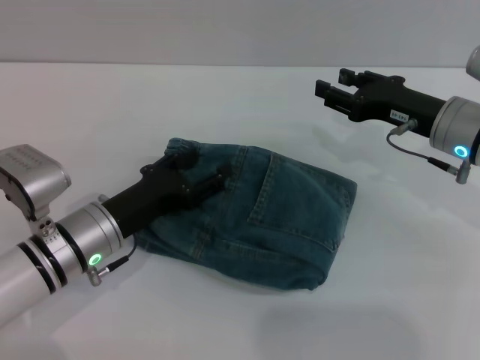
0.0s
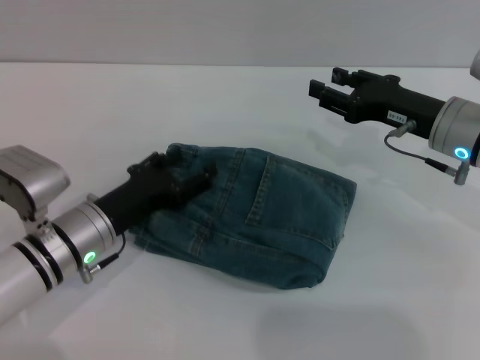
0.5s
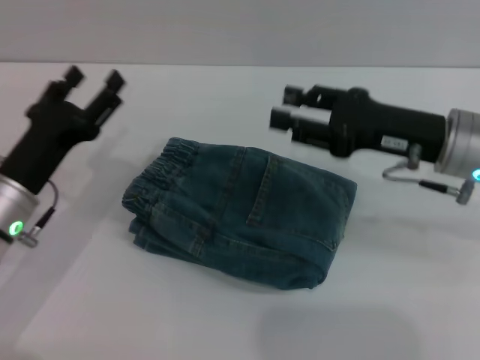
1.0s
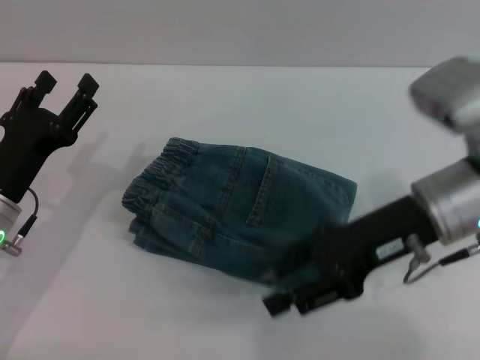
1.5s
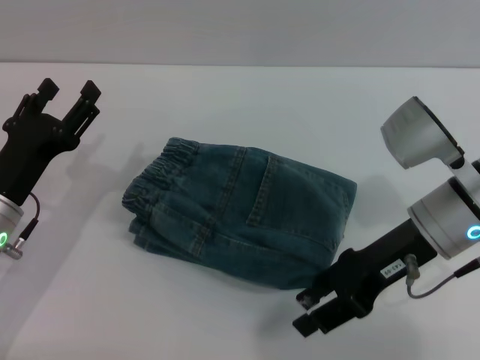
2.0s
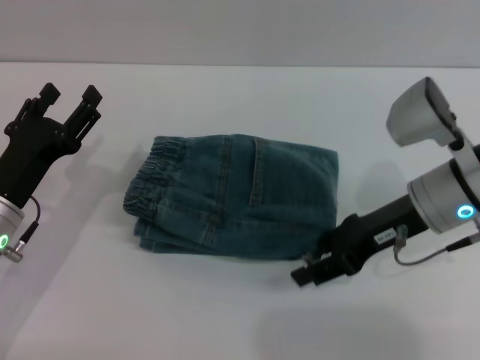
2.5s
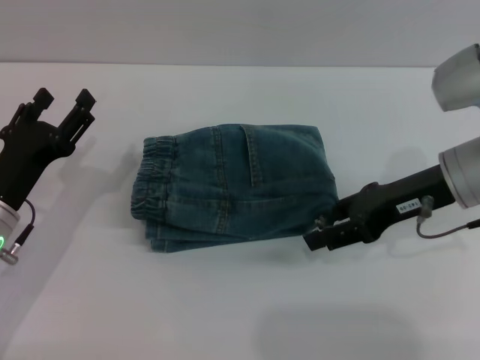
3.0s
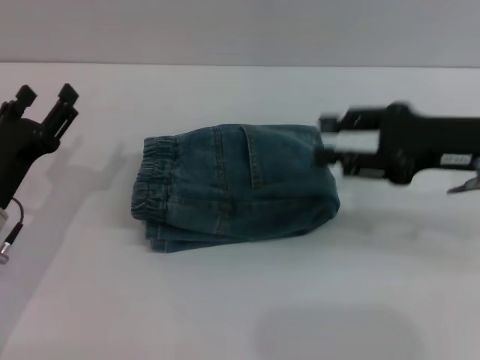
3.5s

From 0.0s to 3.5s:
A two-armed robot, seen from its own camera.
Step, from 0.0s to 3.0s: Place the folded trousers onto the center area with right gripper.
From 0.0s to 2.0s: The right gripper heads backward, covering roughly 5 cm. The left gripper moves to the left, approximately 5 cm.
From 2.0s to 3.5s: The right gripper moves to the right, about 5 cm.

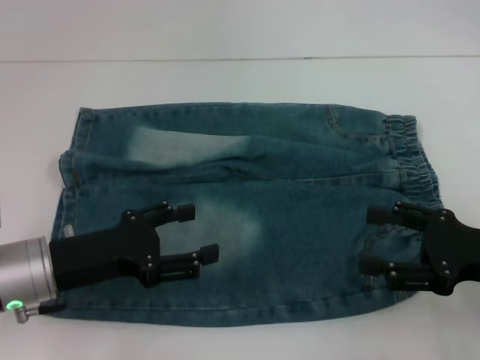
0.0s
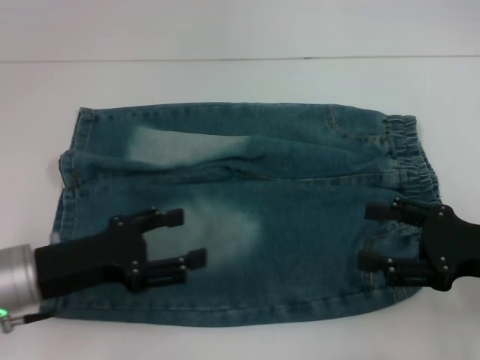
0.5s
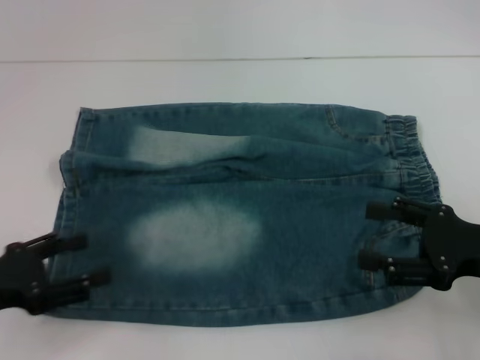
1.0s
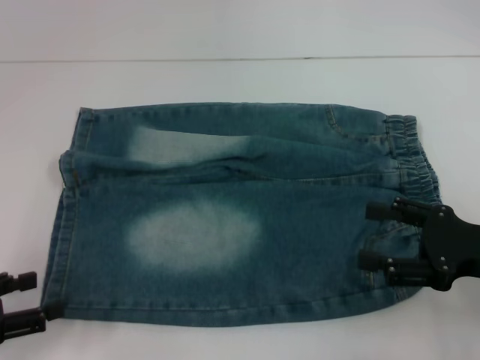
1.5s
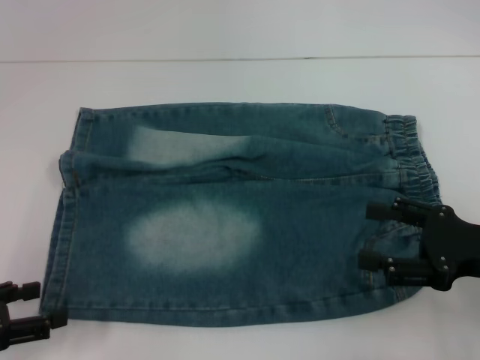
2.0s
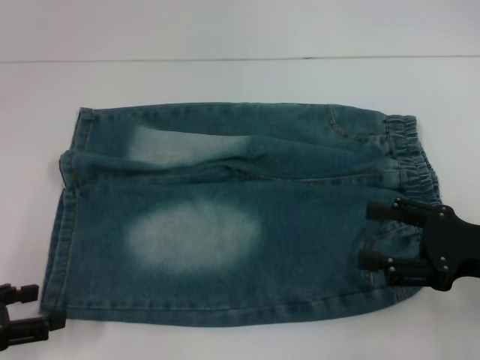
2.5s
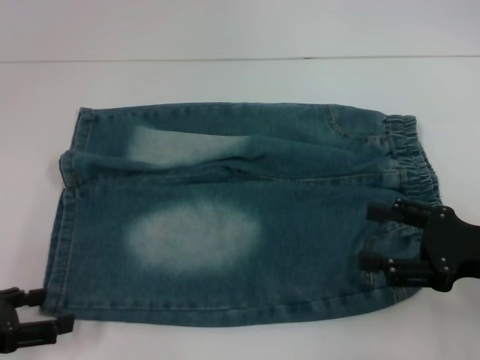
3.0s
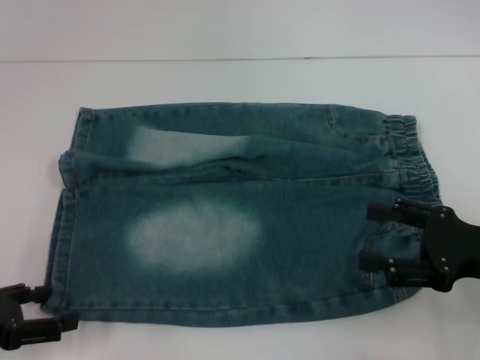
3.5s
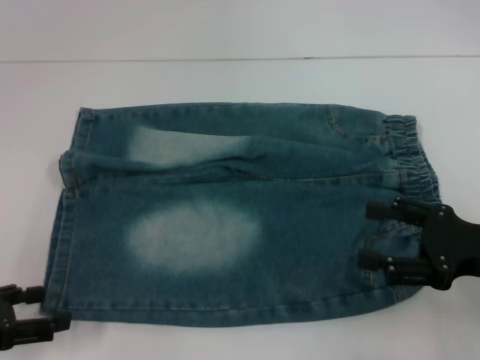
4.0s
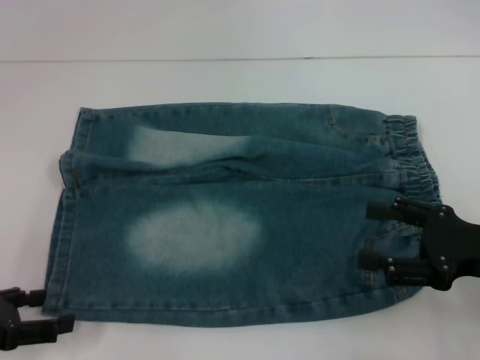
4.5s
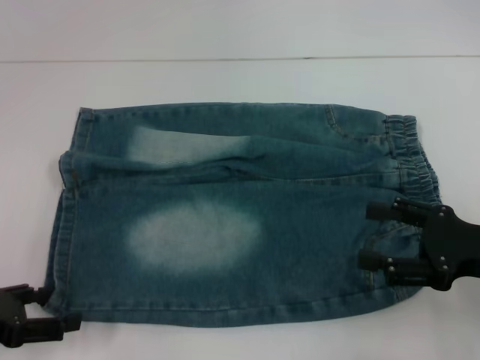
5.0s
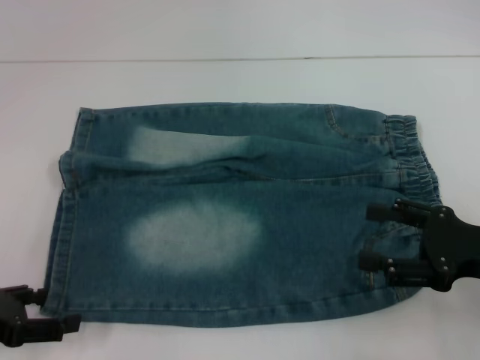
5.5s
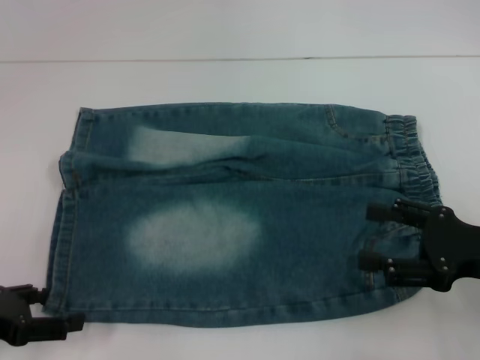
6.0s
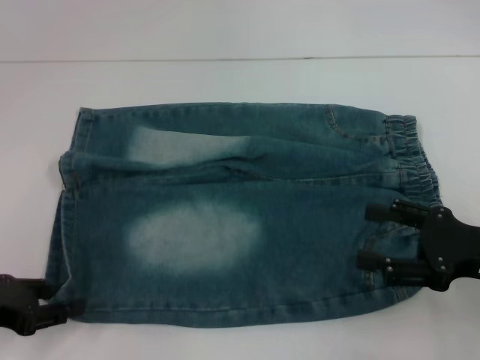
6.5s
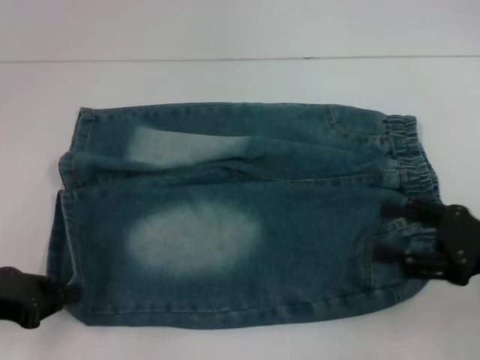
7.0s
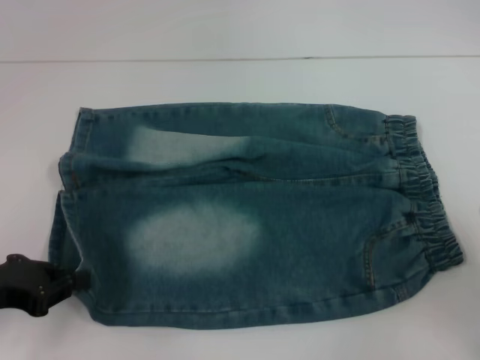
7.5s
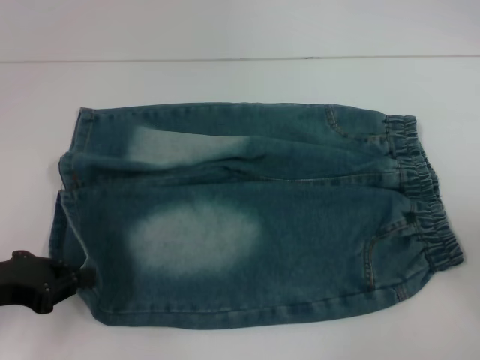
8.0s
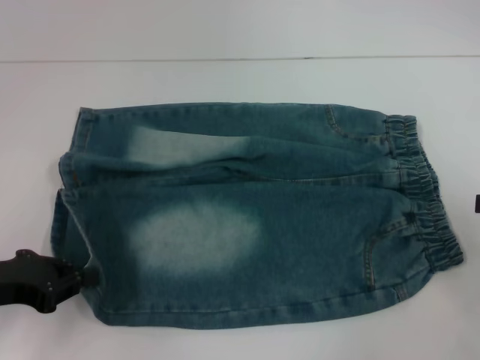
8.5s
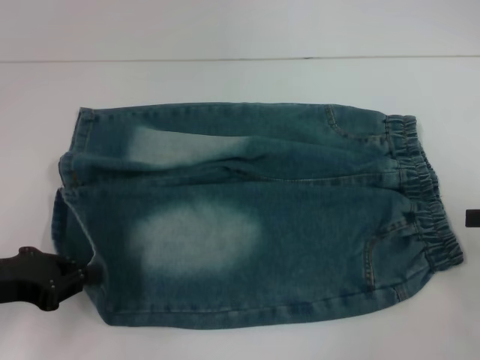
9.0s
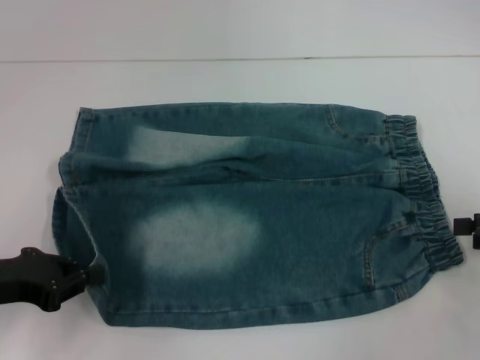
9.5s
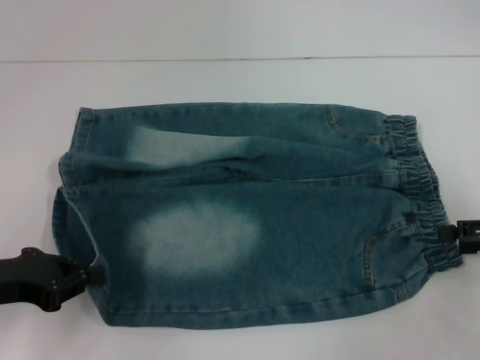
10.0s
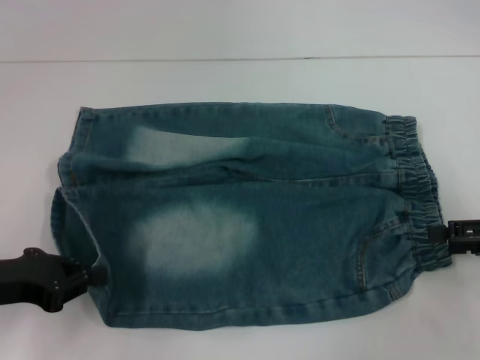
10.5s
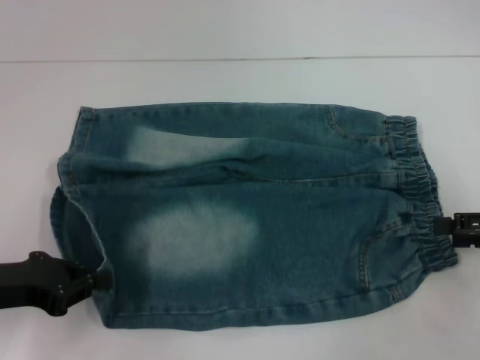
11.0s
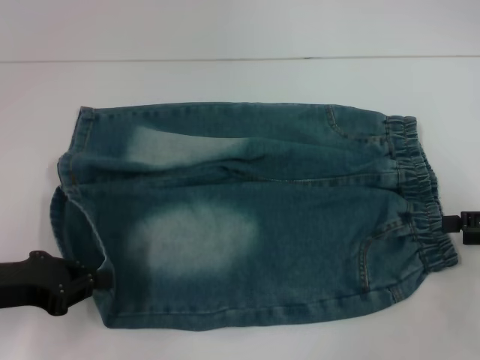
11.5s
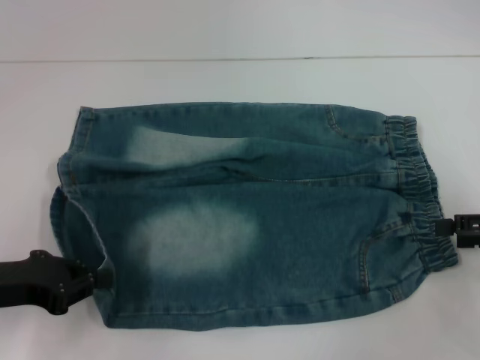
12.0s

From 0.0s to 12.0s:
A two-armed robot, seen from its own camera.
Step, from 0.0s to 6.5s: Grab the lower left pant leg with your left hand.
From 0.0s to 2.0s: The left gripper shifts roughly 15 cm to the left and backward.
From 4.0s to 6.0s: The grippers make only small movements.
From 6.0s to 8.0s: The left gripper closes up, while the right gripper heads to the right, covering roughly 15 cm.
From 10.0s to 12.0s: Both grippers stay about where they are.

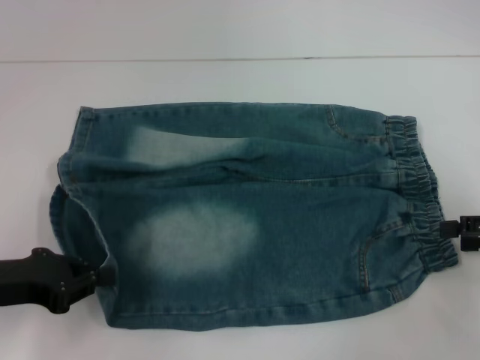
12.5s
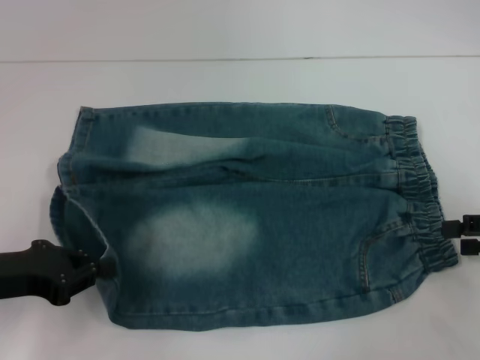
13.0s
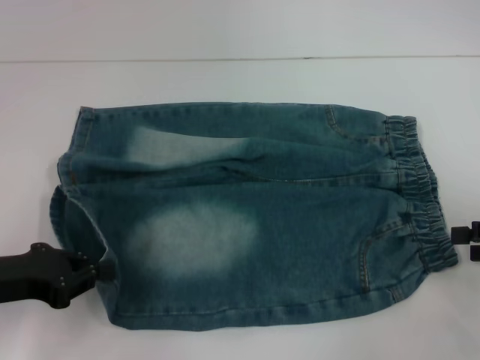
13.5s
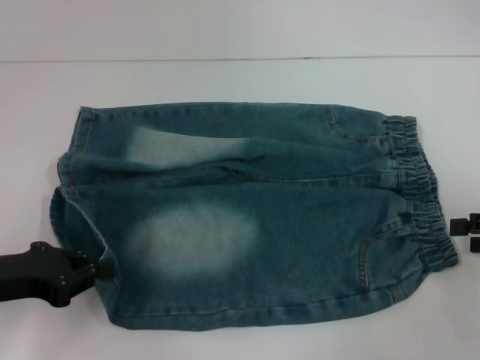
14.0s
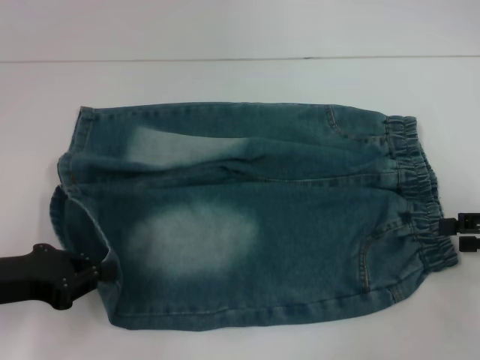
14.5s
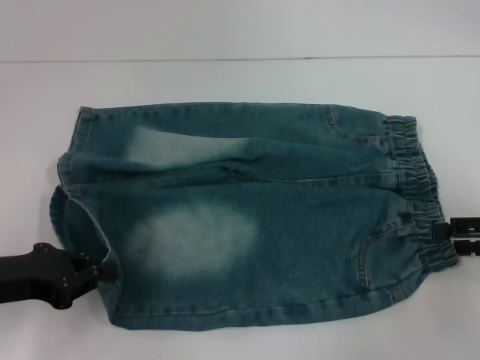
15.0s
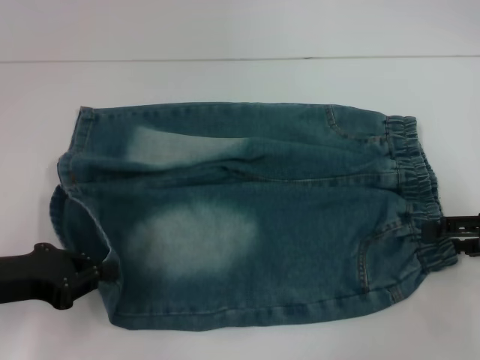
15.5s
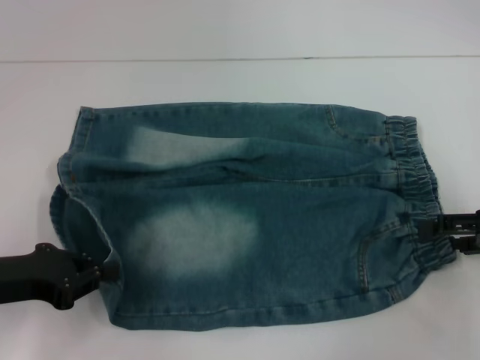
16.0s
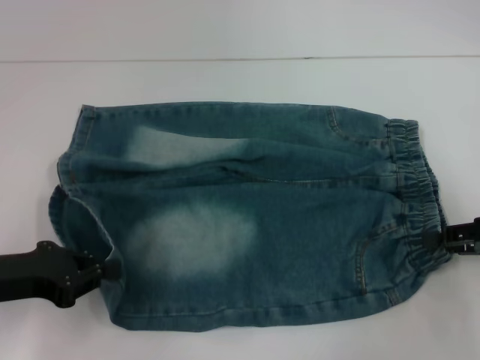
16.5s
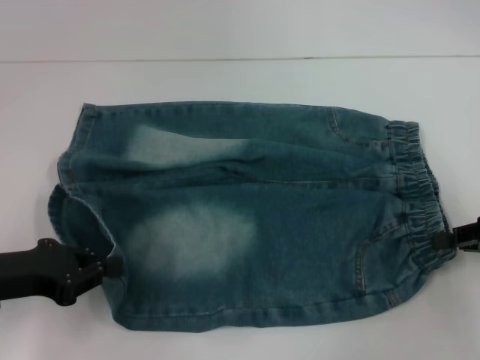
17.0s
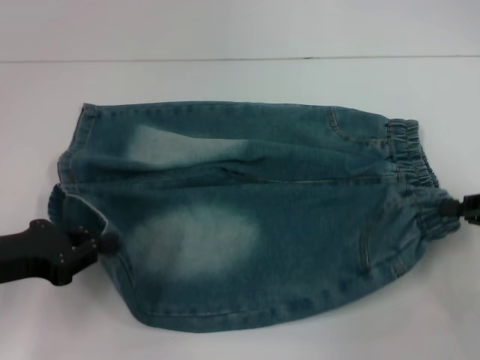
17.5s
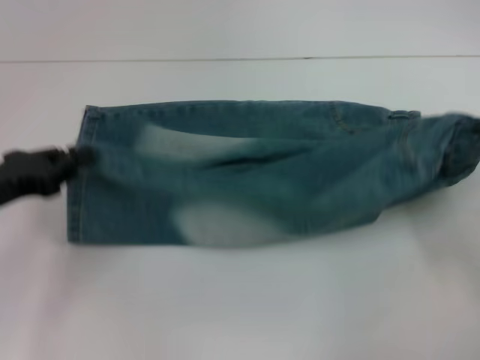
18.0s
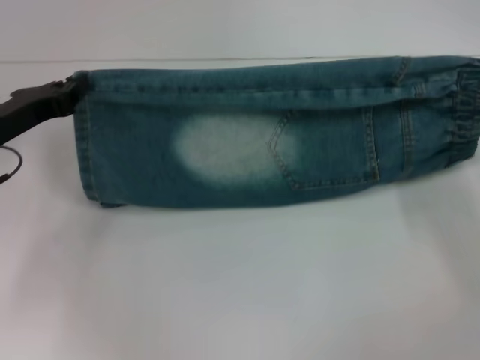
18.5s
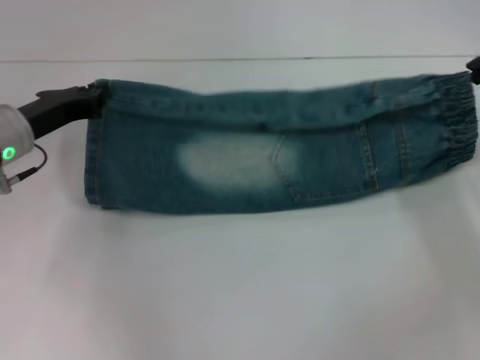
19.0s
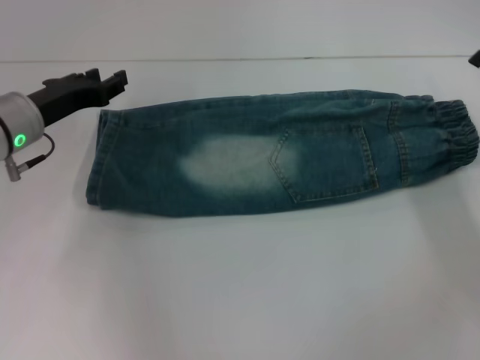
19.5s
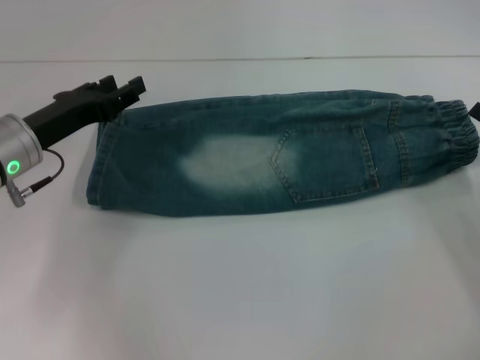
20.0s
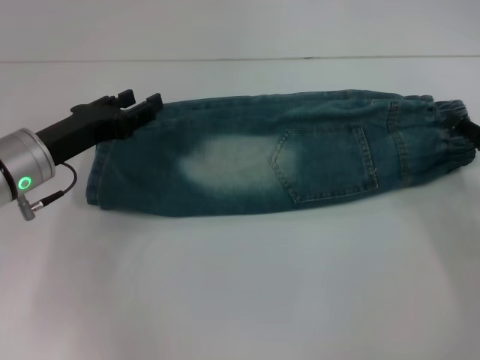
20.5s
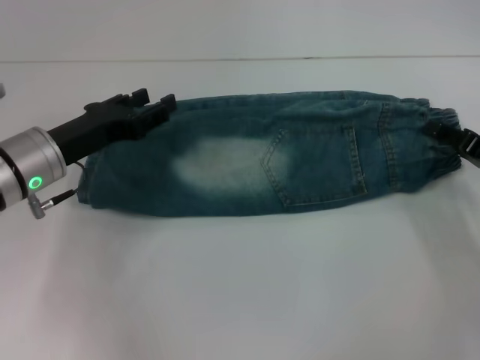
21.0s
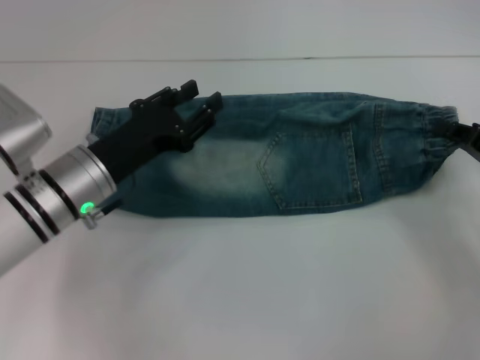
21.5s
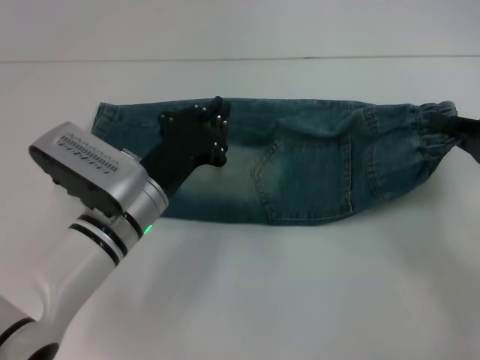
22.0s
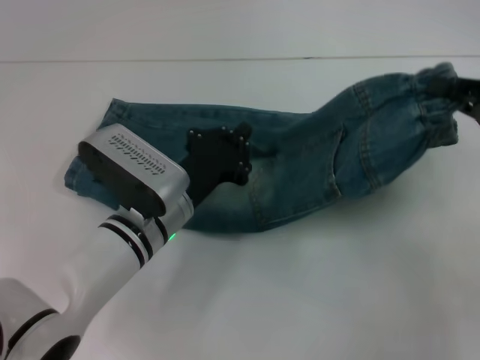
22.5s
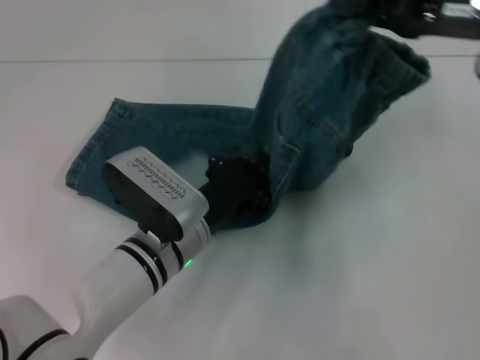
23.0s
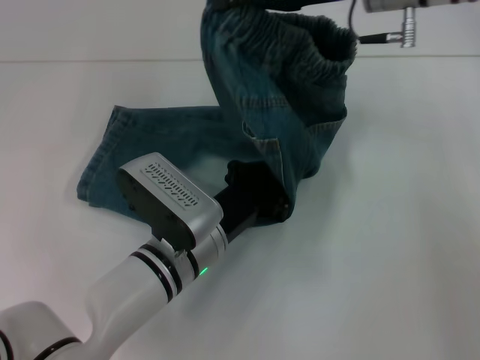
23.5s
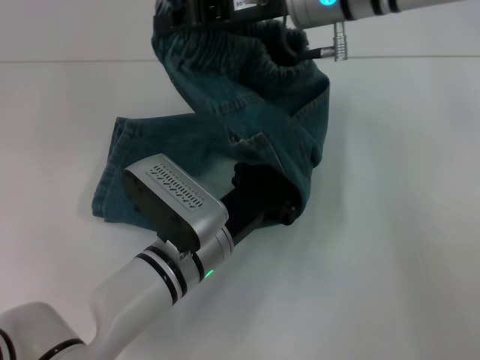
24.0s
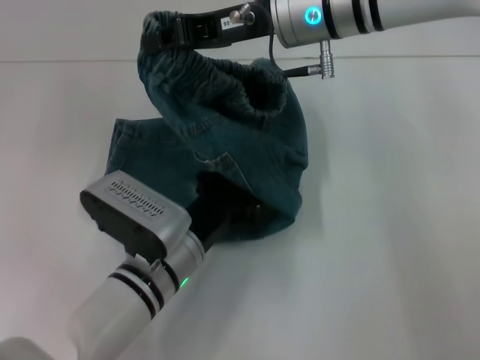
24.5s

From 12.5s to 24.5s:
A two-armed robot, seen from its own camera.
Step, from 12.5s to 16.5s: Hold the lower right waistband with your right hand.
Step, from 17.0s to 19.0s: Fold upward with your right hand.
Step, from 19.5s to 21.0s: Grab the waistband with your right hand.
Step, from 21.5s to 24.0s: Press the middle of the pants with your left hand.
From 12.5s to 14.5s: The two grippers keep their place.
From 14.5s to 16.5s: The grippers move only a little.
From 16.5s to 18.5s: The right gripper ends up about 5 cm from where it was, and closes; the left gripper moves forward, roughly 10 cm.
From 18.5s to 20.5s: The left gripper moves about 5 cm, and opens. The right gripper opens.
From 20.5s to 22.5s: The right gripper goes roughly 10 cm upward, and closes up. Meanwhile the left gripper travels to the right by about 15 cm, and closes.
From 22.5s to 24.5s: The right gripper travels to the left and forward by about 30 cm.
